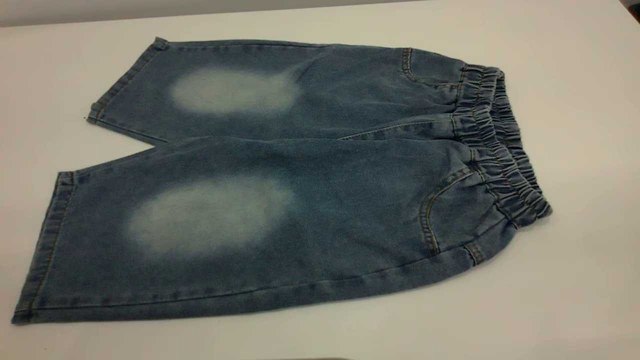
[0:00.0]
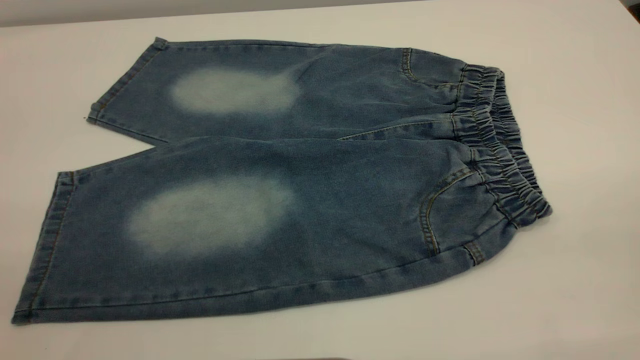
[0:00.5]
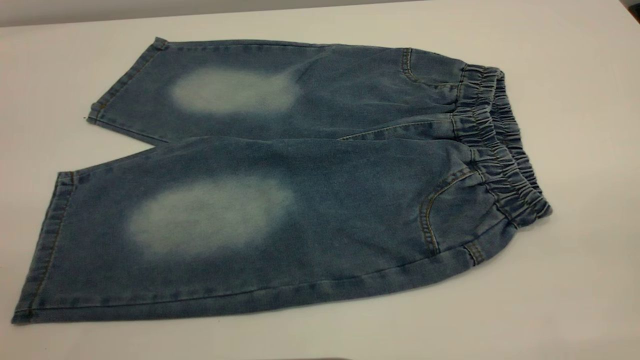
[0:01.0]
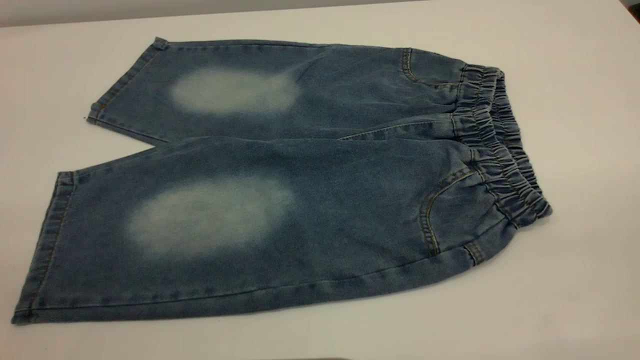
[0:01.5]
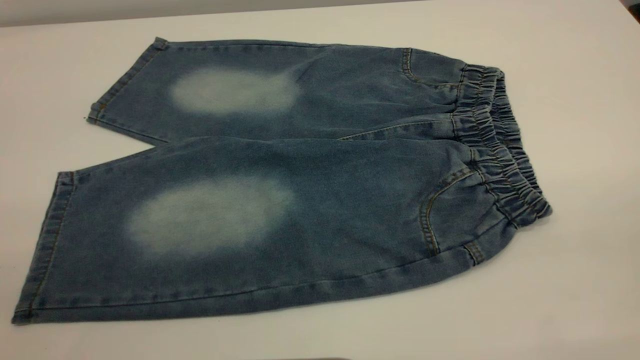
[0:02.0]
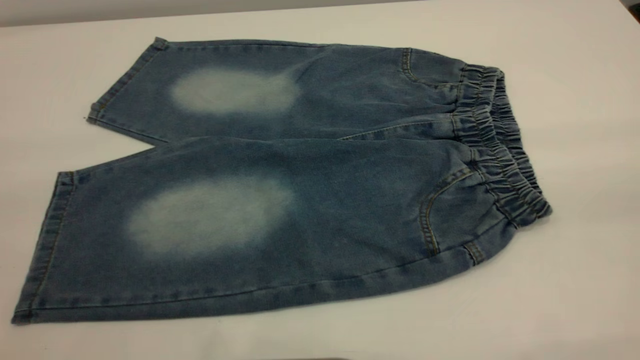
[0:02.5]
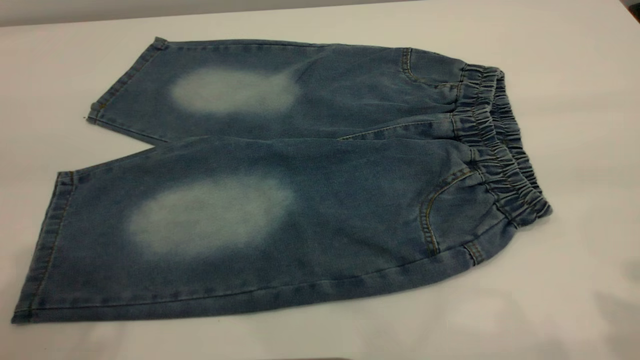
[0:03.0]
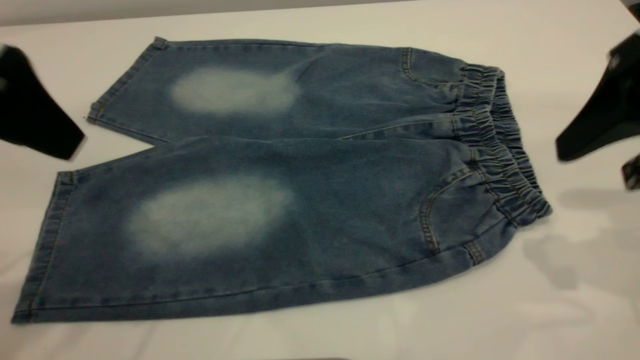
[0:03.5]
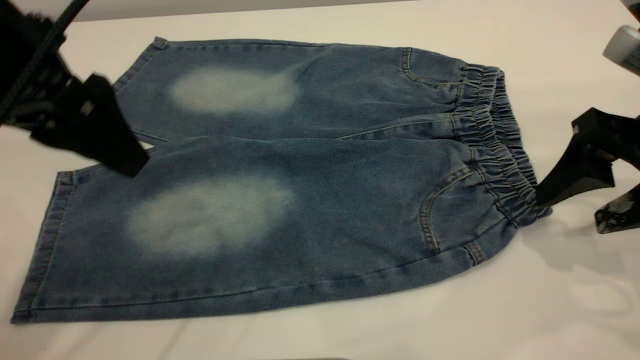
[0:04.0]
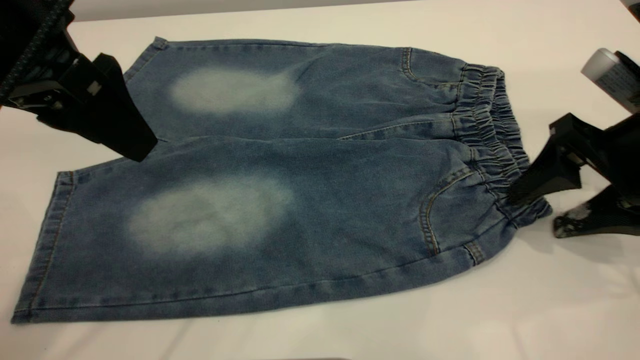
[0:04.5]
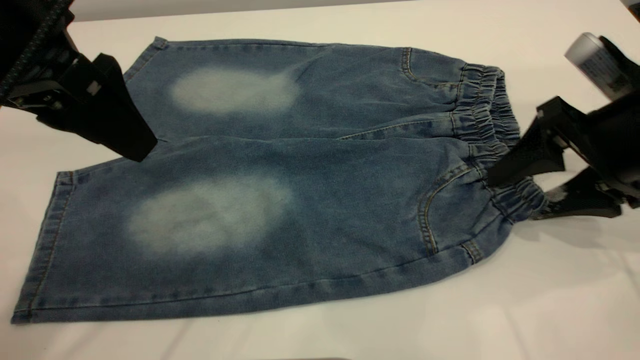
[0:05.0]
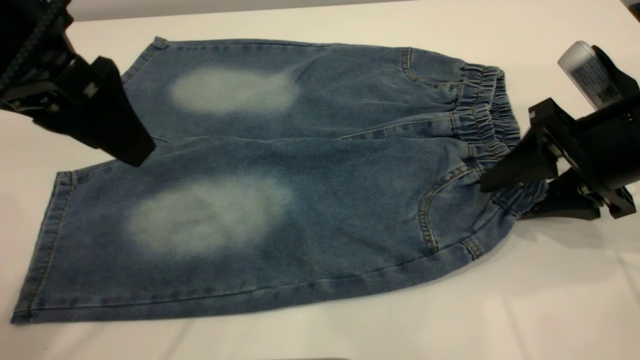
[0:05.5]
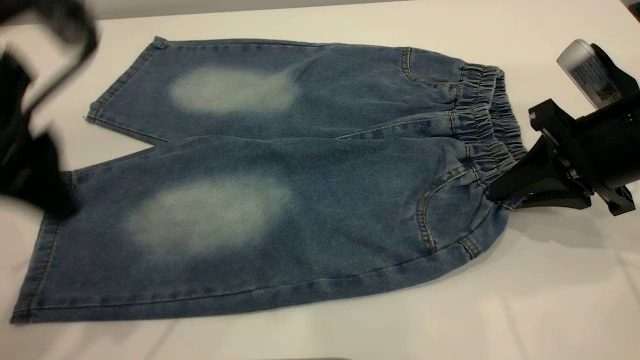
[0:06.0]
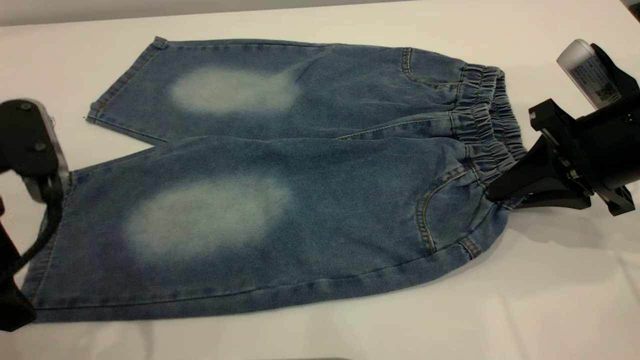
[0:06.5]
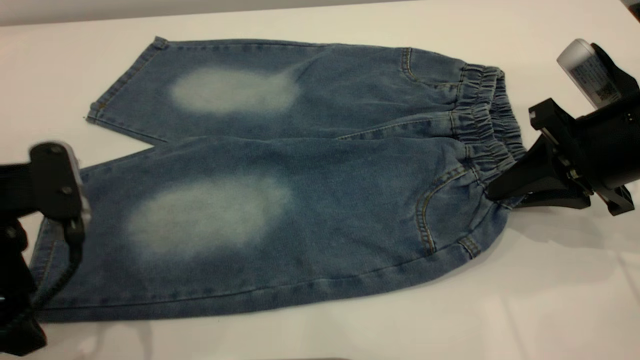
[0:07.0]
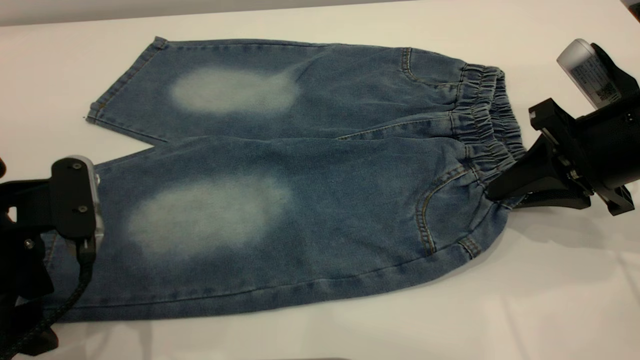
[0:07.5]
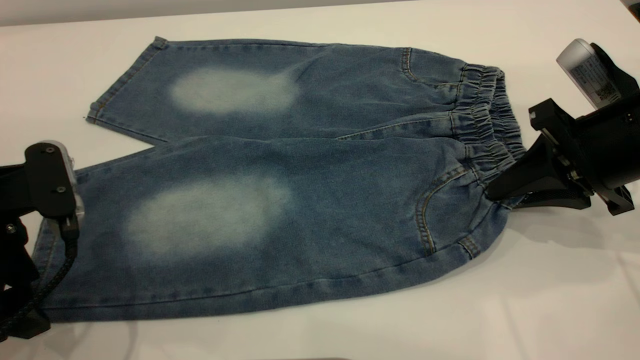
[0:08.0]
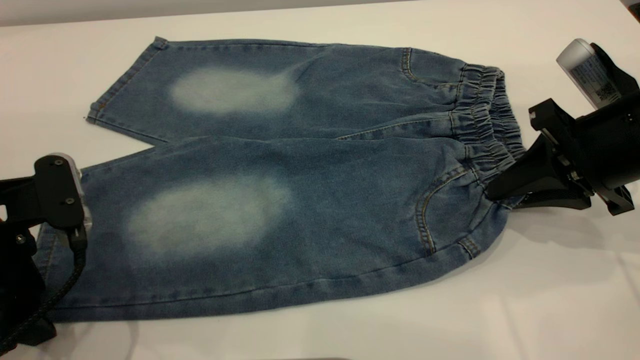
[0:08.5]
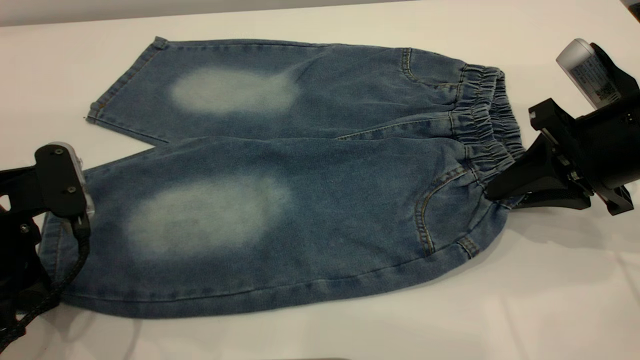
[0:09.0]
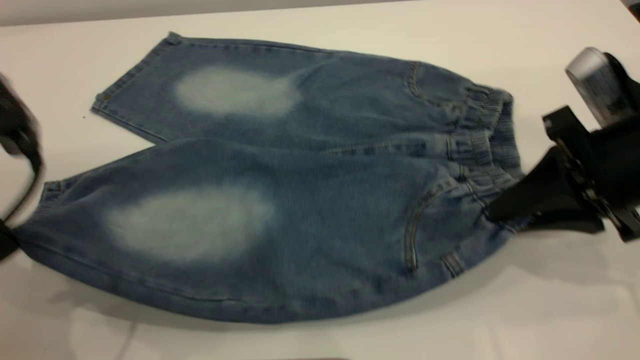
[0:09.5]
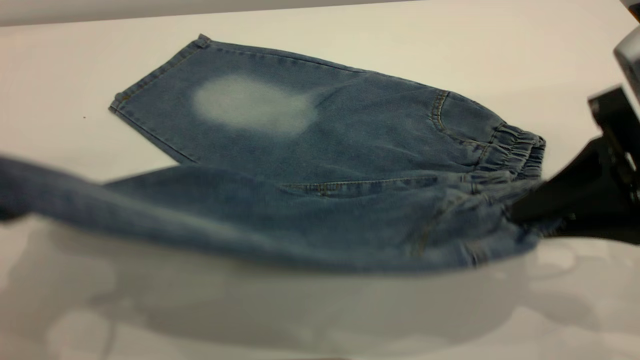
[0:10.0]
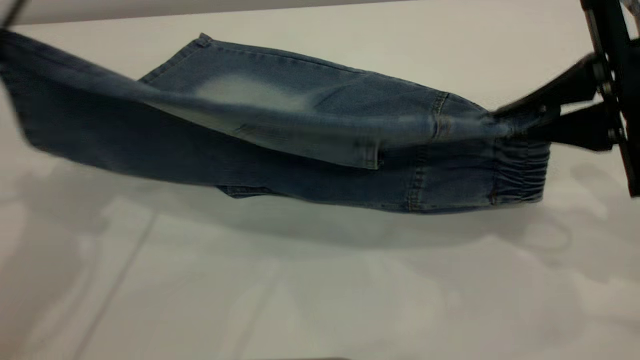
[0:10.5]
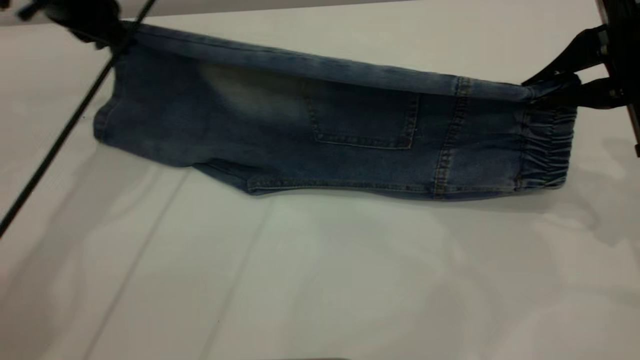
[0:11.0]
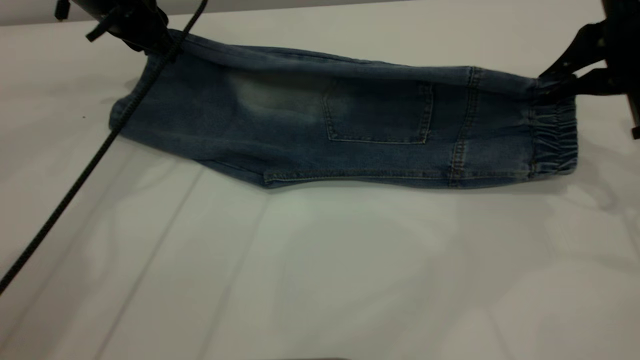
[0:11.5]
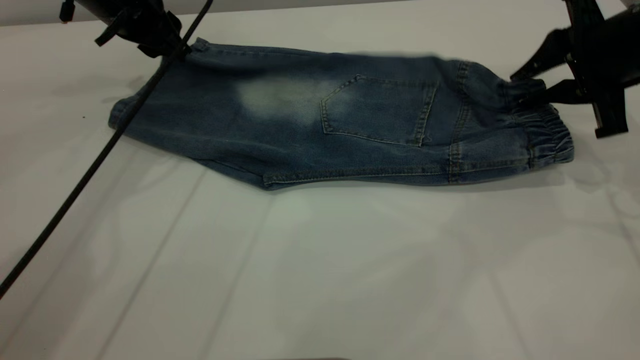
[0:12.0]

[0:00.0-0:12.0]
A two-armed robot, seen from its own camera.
0:00.0 to 0:02.0: Both grippers stay put.
0:02.0 to 0:04.0: The left gripper shifts roughly 25 cm forward, and opens its fingers. The right gripper is displaced forward and downward by about 30 cm.
0:04.0 to 0:06.0: The right gripper changes place by approximately 5 cm, and closes up.
0:06.0 to 0:08.0: The left gripper heads downward, covering approximately 10 cm.
0:08.0 to 0:10.0: The left gripper goes about 15 cm upward, and closes, while the right gripper moves backward and upward, roughly 10 cm.
0:10.0 to 0:12.0: The left gripper shifts about 30 cm forward, and opens up, while the right gripper moves forward, about 15 cm.

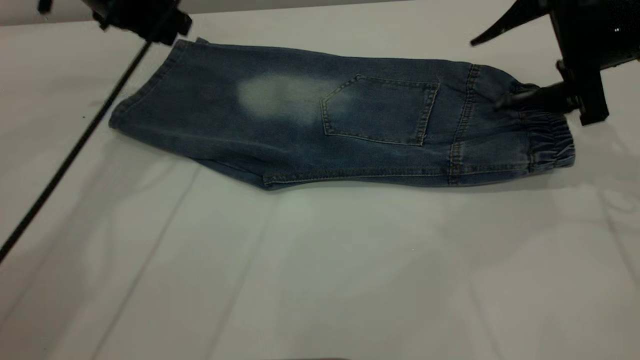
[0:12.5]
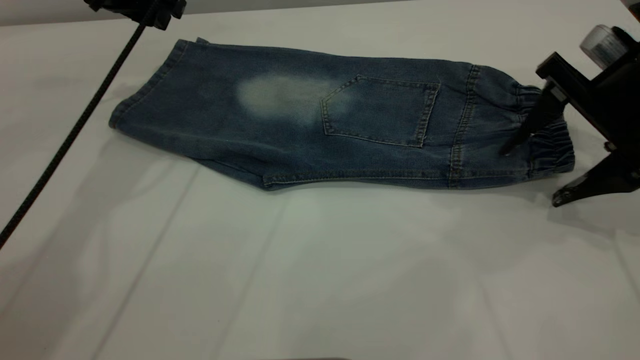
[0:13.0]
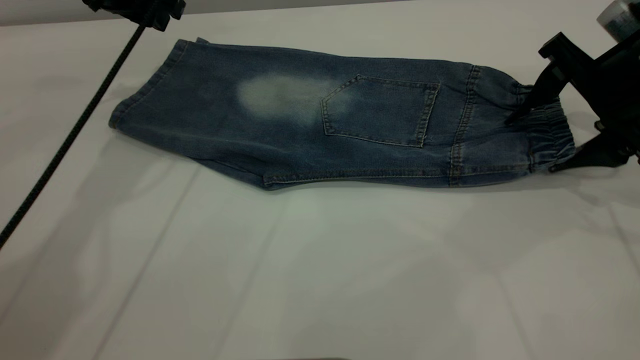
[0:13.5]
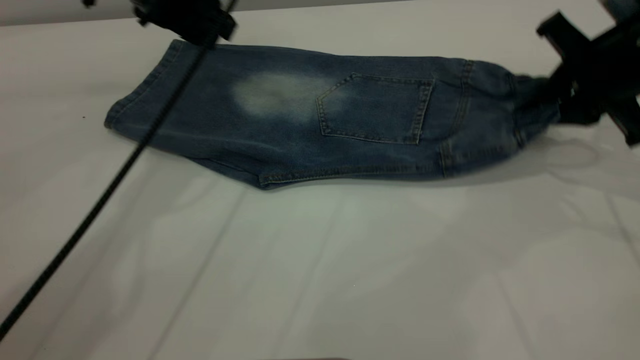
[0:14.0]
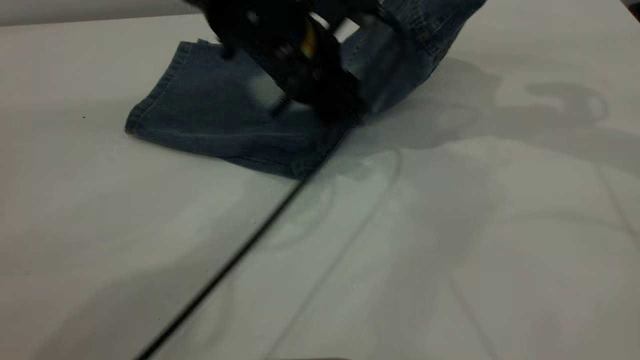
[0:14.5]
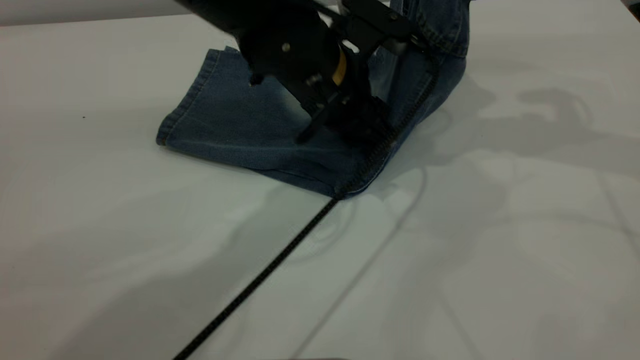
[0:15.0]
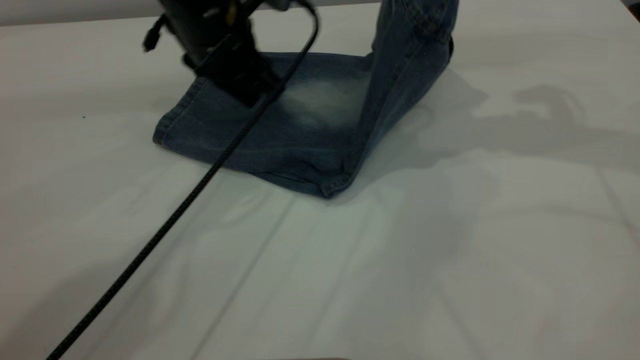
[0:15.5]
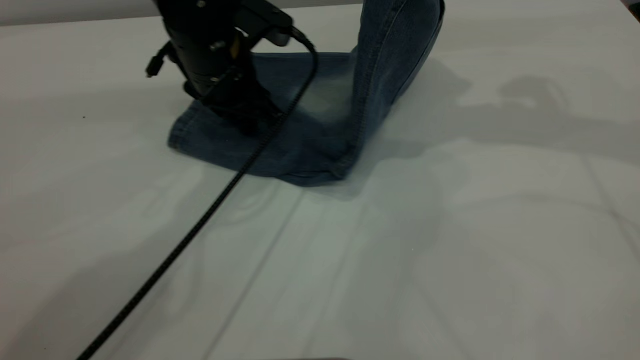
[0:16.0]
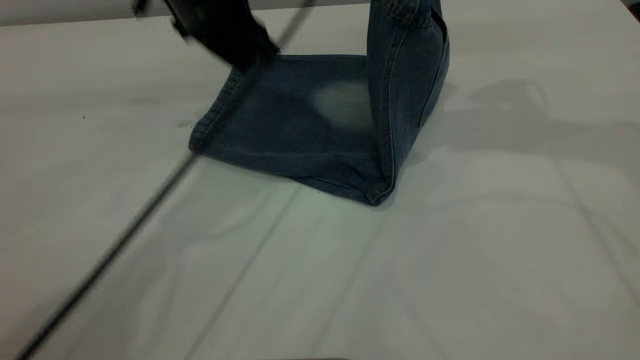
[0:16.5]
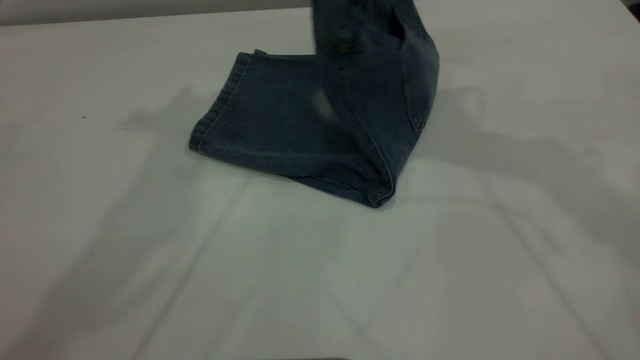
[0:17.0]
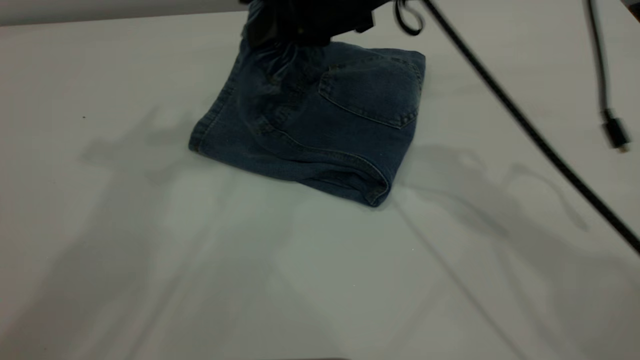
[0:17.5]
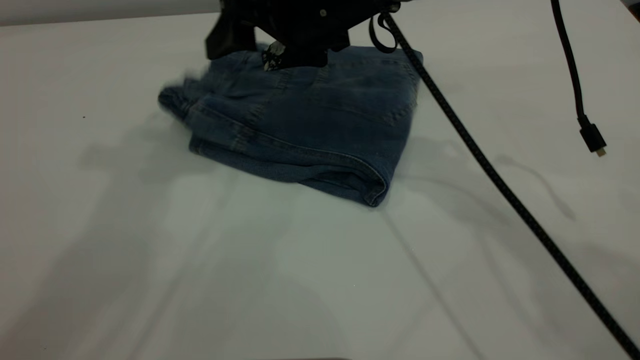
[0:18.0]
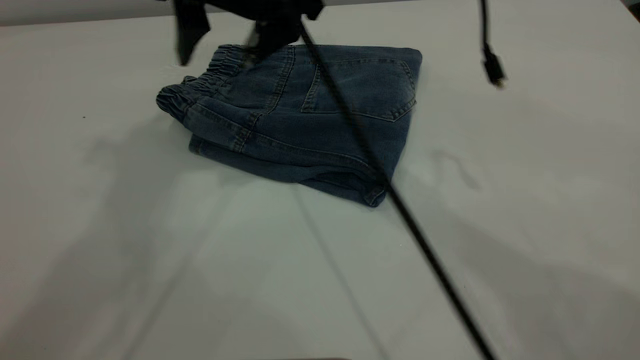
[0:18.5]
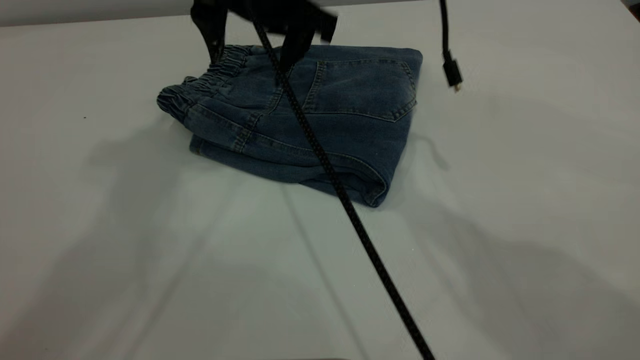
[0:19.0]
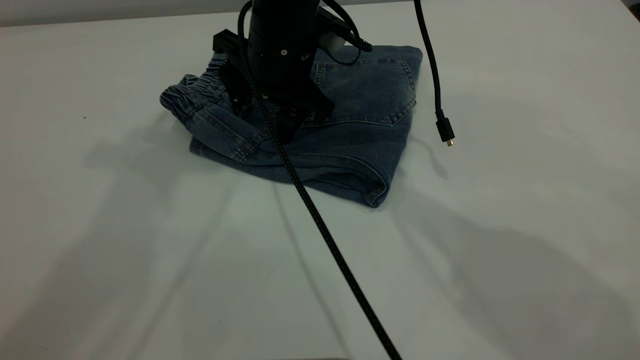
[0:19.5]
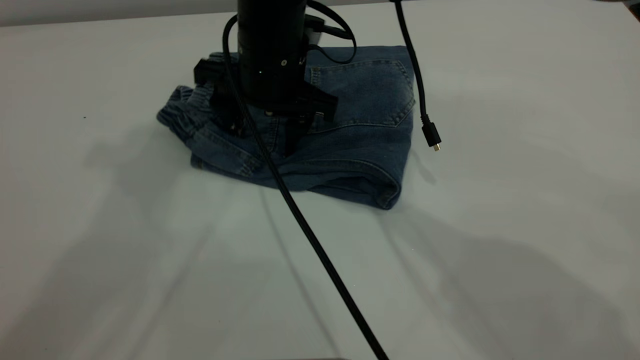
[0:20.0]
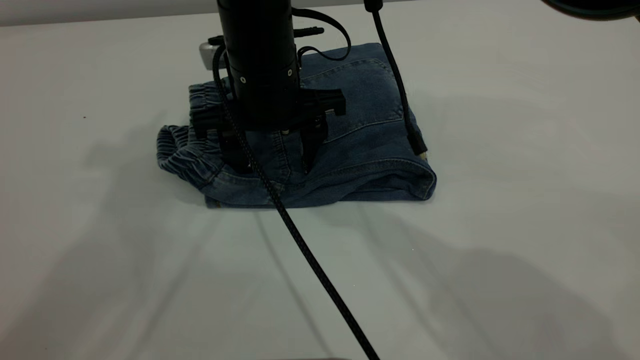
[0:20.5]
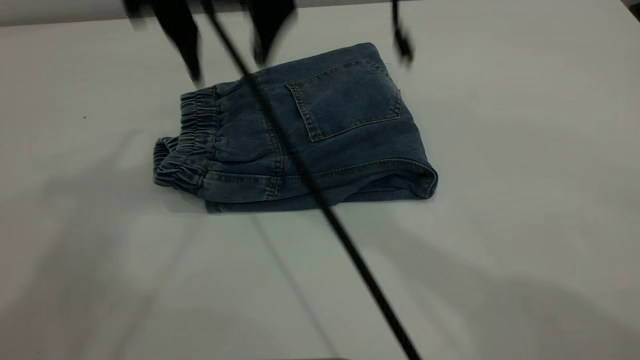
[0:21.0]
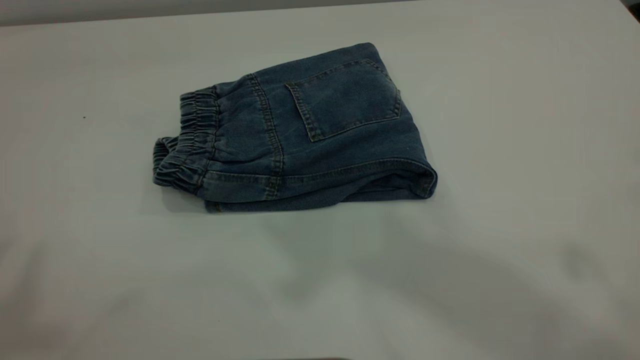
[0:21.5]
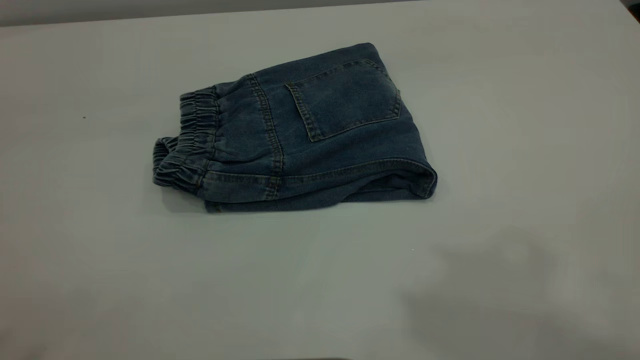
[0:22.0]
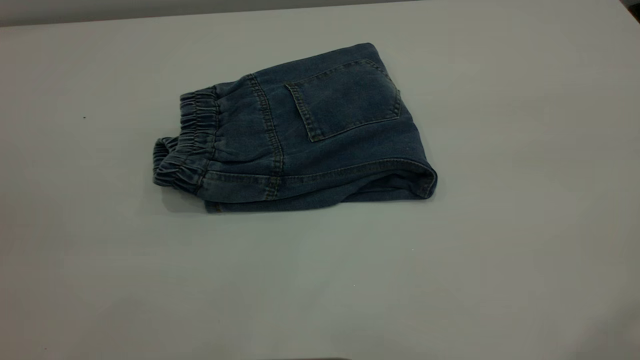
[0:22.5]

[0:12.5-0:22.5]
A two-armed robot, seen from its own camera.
Step, 0:13.0 to 0:18.0: Fold your pants from right to left.
0:12.5 to 0:14.5: The left gripper travels to the right and backward by roughly 20 cm. Meanwhile the right gripper heads upward, covering approximately 10 cm, and closes up.
0:14.5 to 0:16.5: The left gripper moves to the left and upward, roughly 10 cm, while the right gripper changes place by about 5 cm.
0:16.5 to 0:18.5: The right gripper goes roughly 25 cm to the left, and opens its fingers, while the left gripper is displaced upward by roughly 25 cm.
0:18.5 to 0:20.5: The right gripper travels downward by some 10 cm.
0:20.5 to 0:22.5: The left gripper is displaced backward by about 25 cm, while the right gripper shifts approximately 50 cm upward, to the right and backward.
